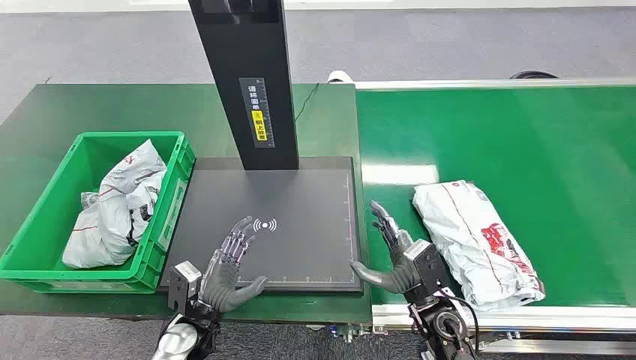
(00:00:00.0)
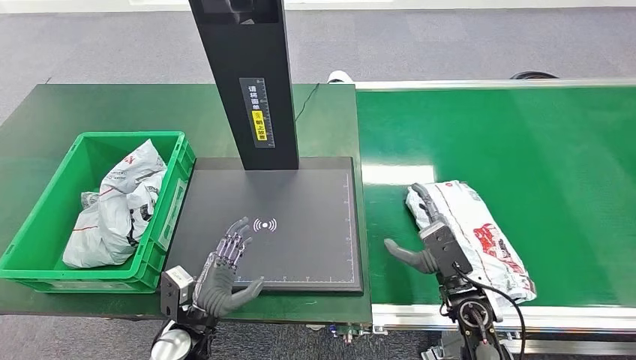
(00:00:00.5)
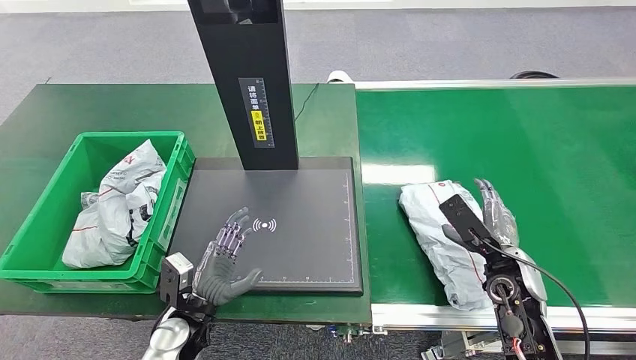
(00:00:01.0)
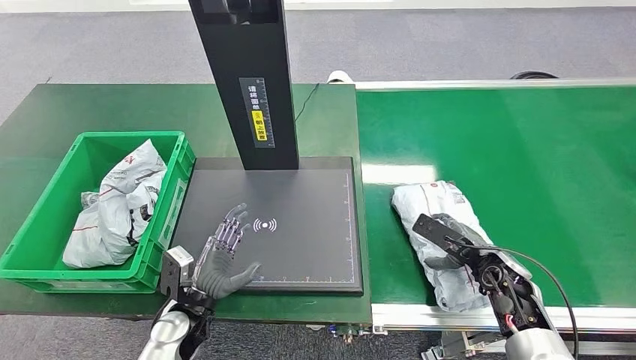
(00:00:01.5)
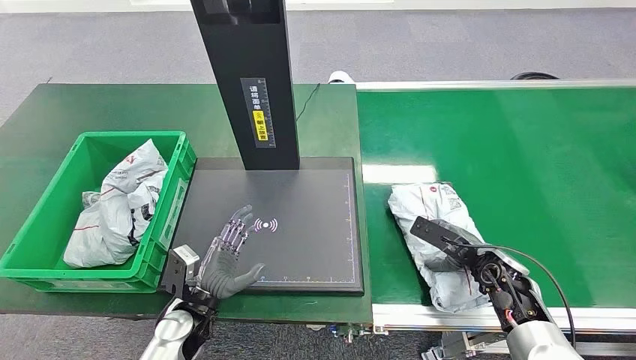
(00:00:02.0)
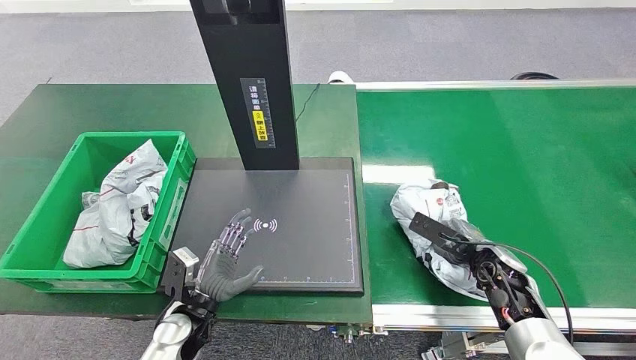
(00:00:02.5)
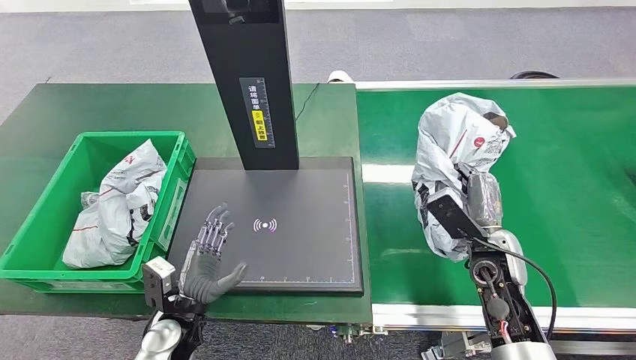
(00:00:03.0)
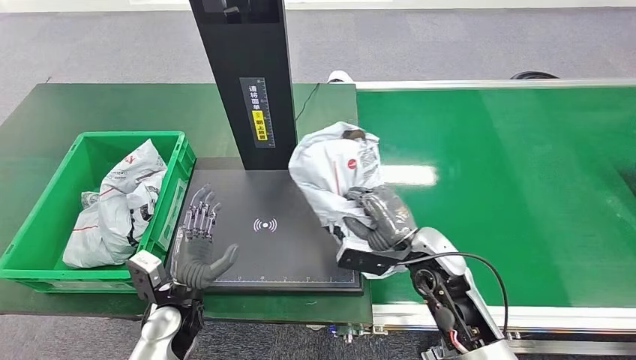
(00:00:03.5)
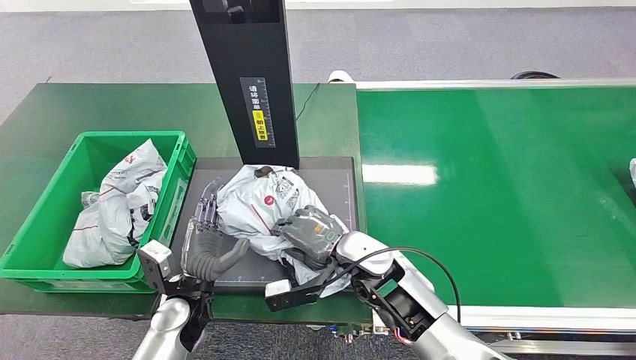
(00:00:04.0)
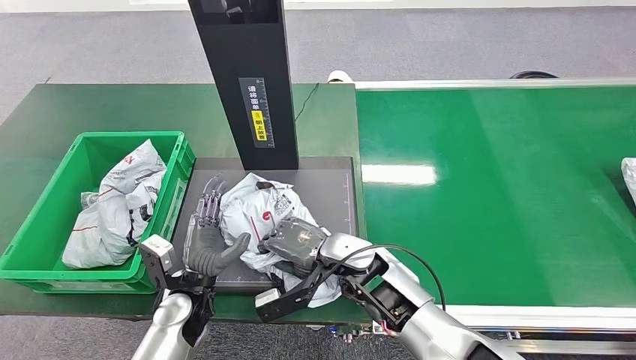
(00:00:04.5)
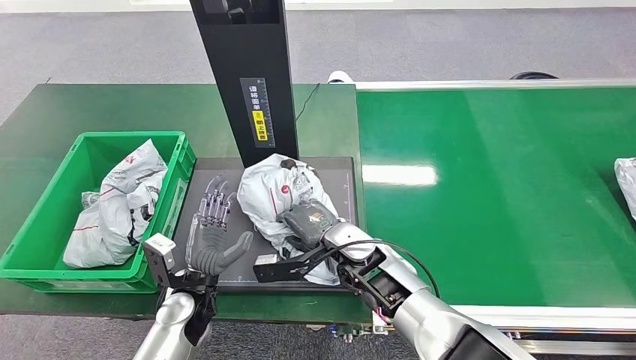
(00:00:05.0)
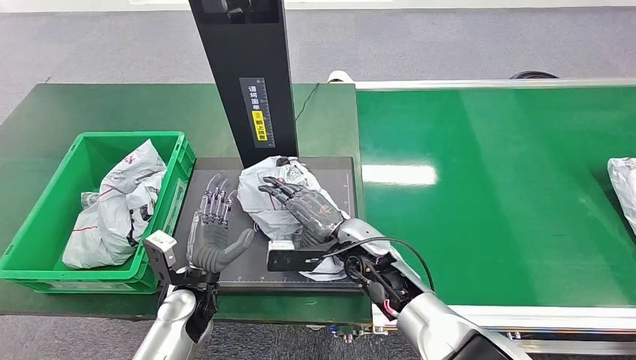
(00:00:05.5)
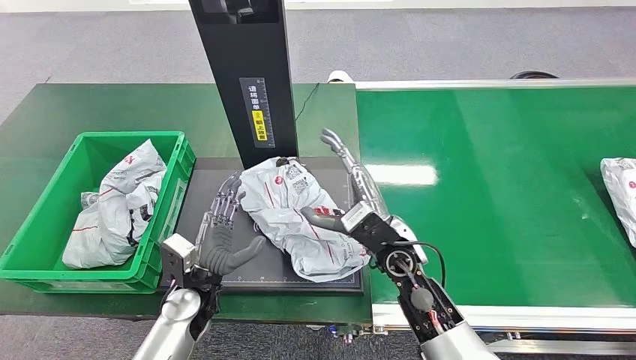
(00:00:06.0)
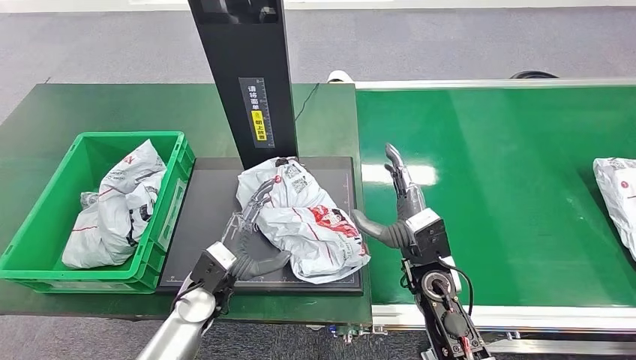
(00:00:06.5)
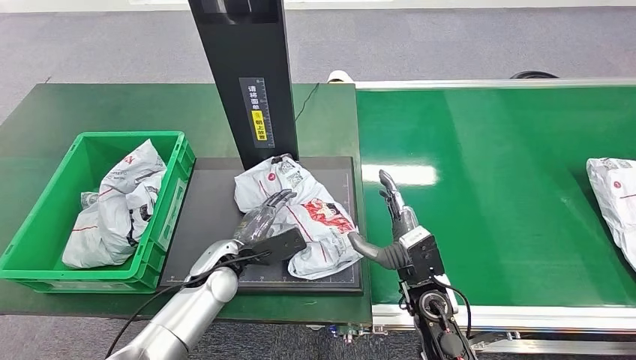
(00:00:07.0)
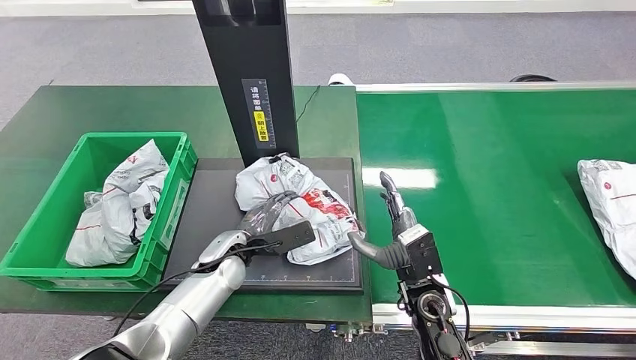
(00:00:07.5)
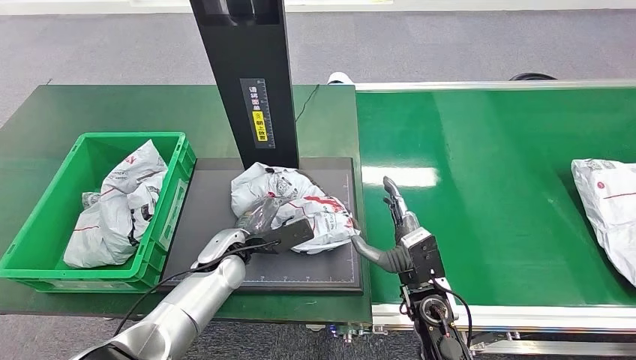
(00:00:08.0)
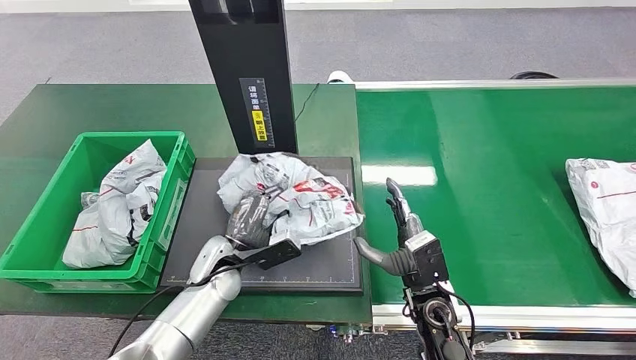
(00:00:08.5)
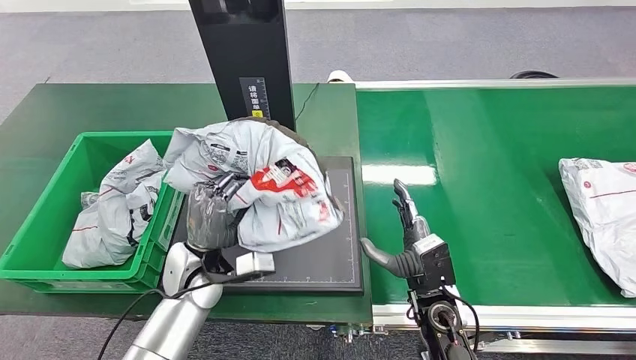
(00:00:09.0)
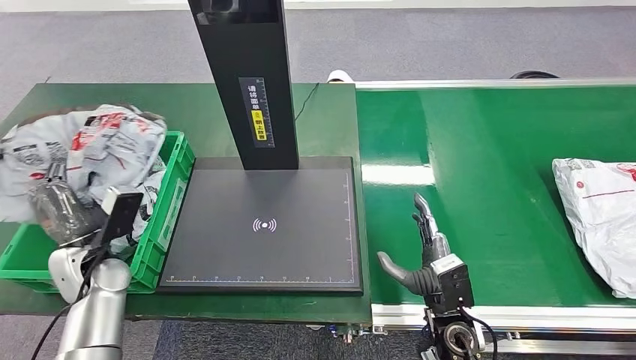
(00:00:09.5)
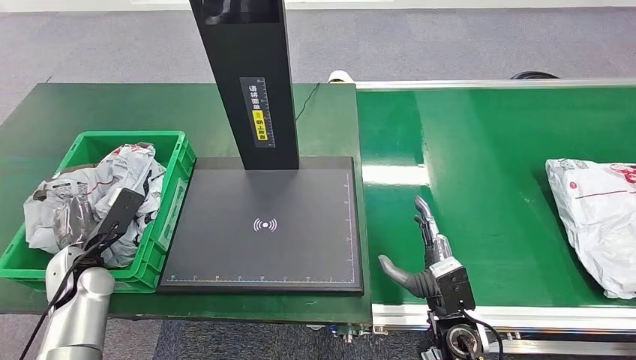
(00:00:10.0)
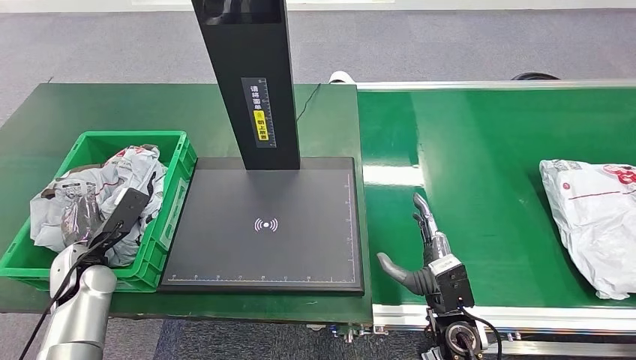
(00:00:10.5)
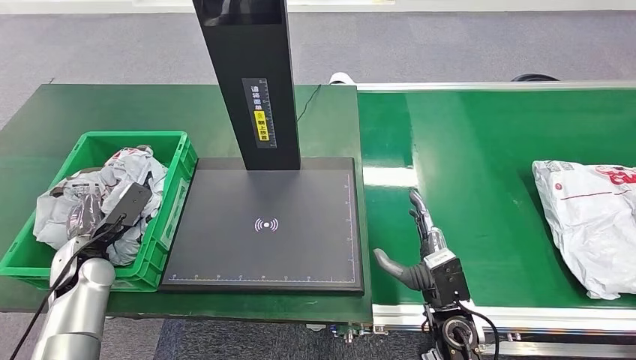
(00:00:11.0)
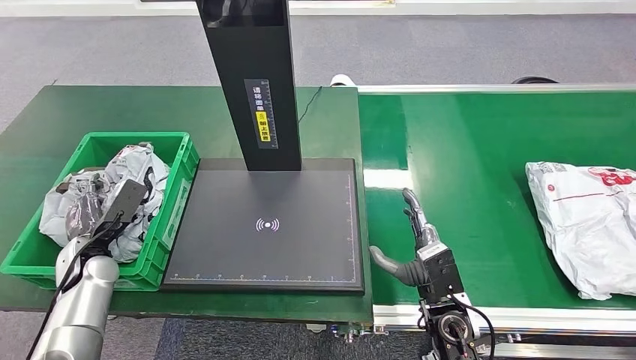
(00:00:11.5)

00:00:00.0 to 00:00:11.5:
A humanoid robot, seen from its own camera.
Task of the whole recording: Weigh the package on the weighing device and place it in the left basket.
Step, 00:00:00.0 to 00:00:03.0: Pick up the package from the conveyor belt.
Step, 00:00:03.5 to 00:00:05.0: Place the package onto the inbound machine.
Step, 00:00:05.5 to 00:00:09.0: Pick up the package from the inbound machine.
00:00:02.0 to 00:00:04.0: The right hand goes approximately 25 cm to the left.

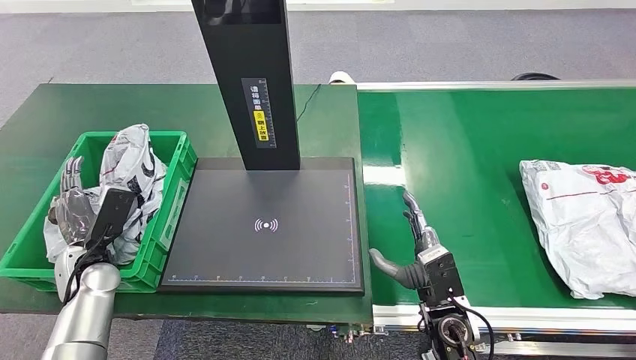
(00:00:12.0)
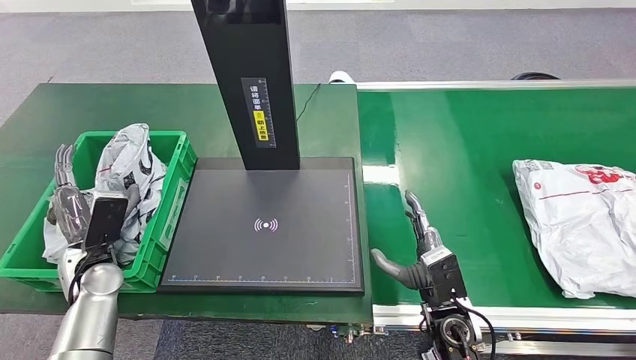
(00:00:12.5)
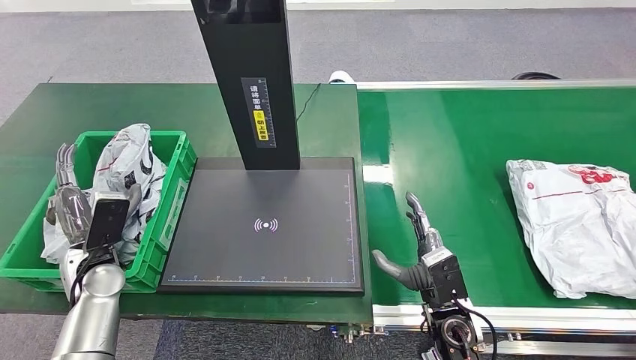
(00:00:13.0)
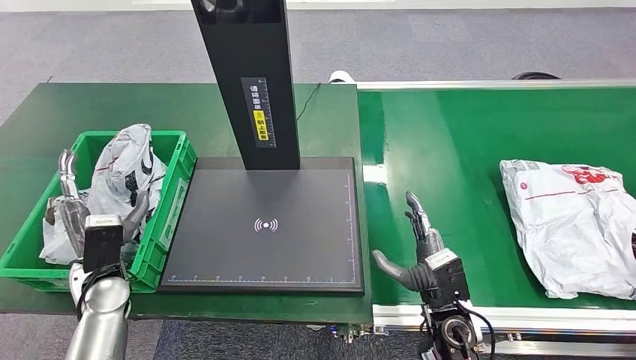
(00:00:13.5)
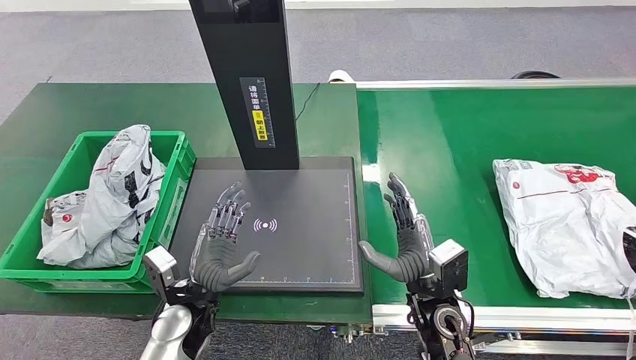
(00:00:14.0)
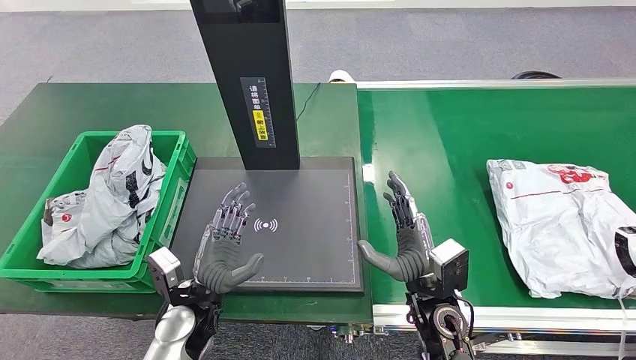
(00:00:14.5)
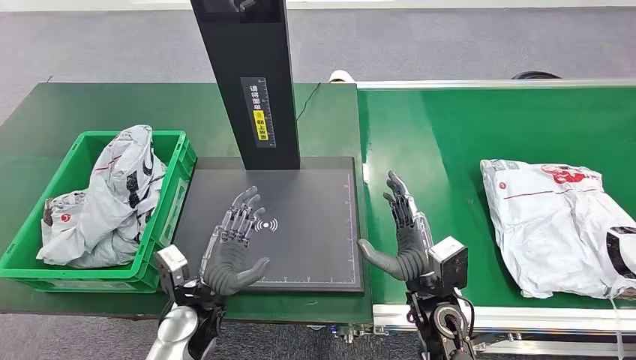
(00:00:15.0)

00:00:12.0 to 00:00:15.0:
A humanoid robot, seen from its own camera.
Task of the whole recording: Weigh the package on the weighing device and place it in the left basket.
Step, 00:00:12.0 to 00:00:14.5: Place the package into the parcel locker.
00:00:12.0 to 00:00:13.5: The left hand moves to the right, about 5 cm.
00:00:13.5 to 00:00:15.0: The left hand heads to the right, covering some 15 cm, while the right hand shifts by roughly 5 cm.
